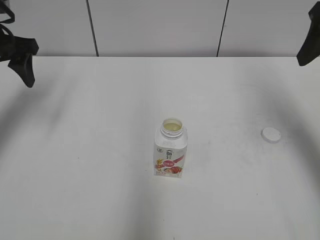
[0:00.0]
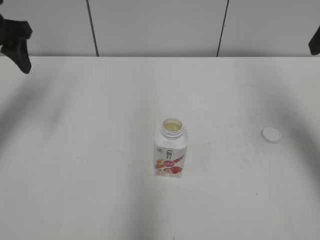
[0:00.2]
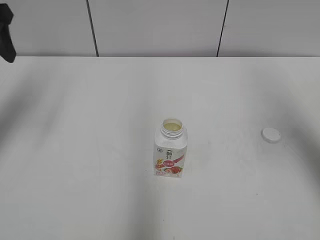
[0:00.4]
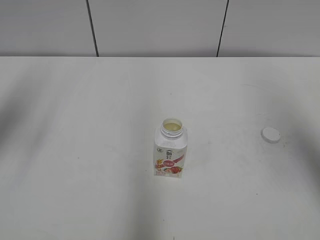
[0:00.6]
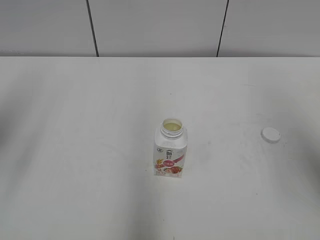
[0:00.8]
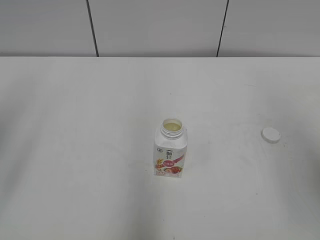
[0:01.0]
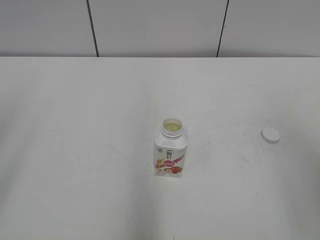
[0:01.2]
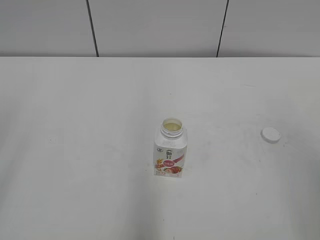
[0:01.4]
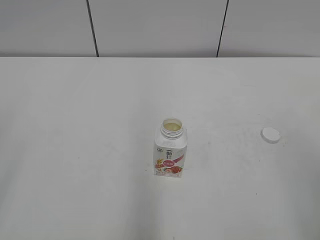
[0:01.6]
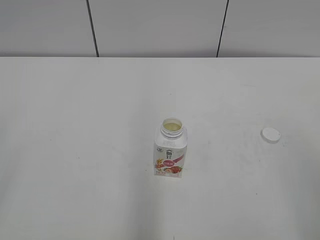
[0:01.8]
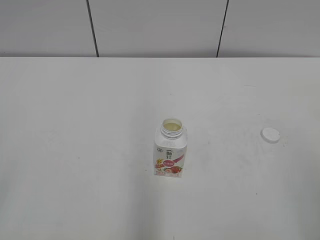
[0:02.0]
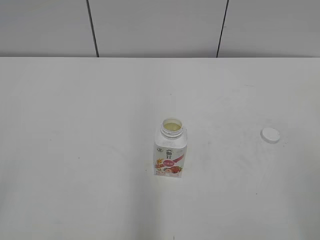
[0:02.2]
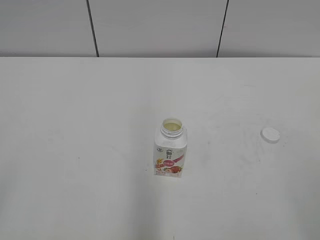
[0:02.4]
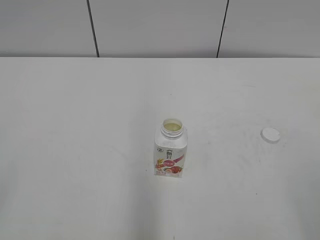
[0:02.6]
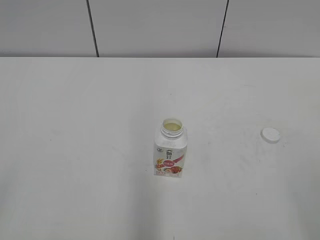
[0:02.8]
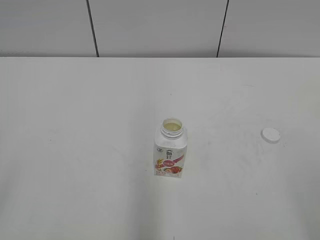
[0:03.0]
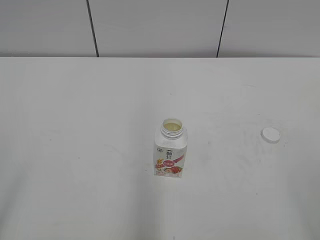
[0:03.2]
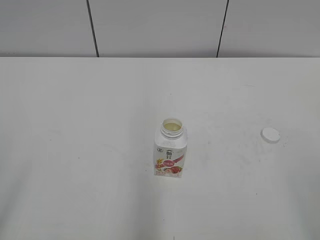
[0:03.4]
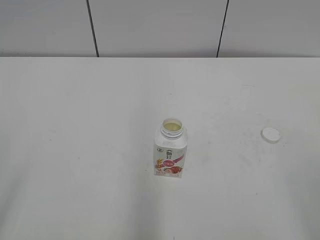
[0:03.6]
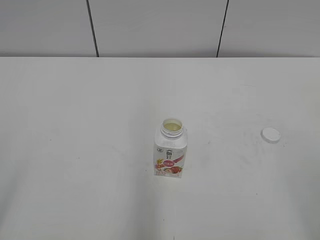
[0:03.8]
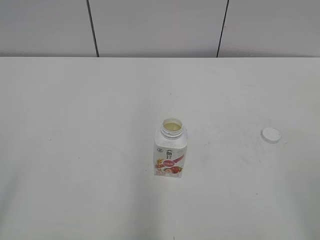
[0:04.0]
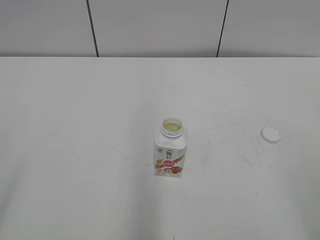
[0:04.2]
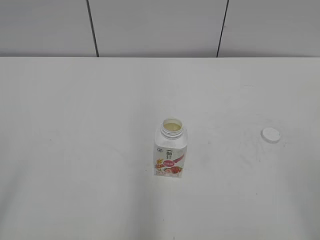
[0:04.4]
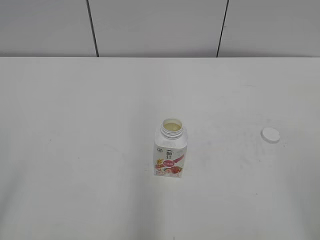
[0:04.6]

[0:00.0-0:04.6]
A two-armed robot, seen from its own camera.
0:00.0 to 0:01.6: The two grippers go approximately 30 cm backward.

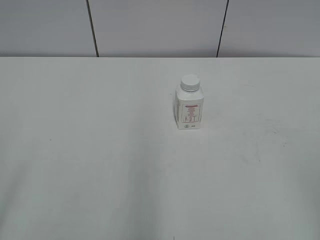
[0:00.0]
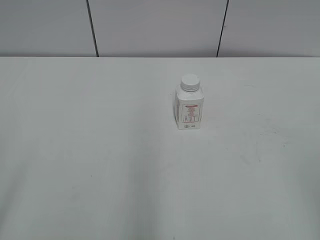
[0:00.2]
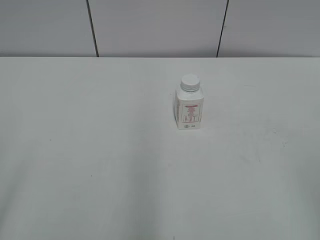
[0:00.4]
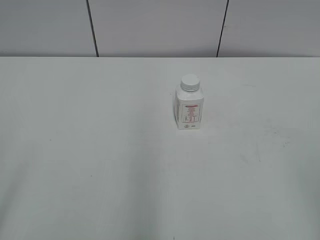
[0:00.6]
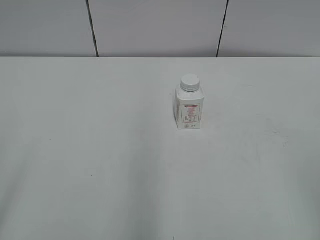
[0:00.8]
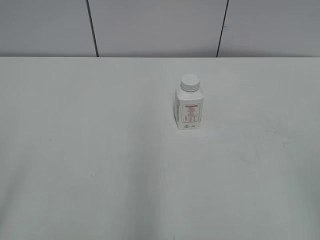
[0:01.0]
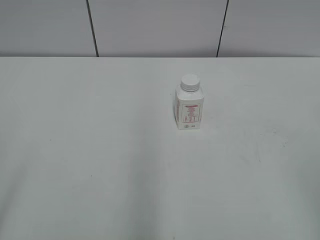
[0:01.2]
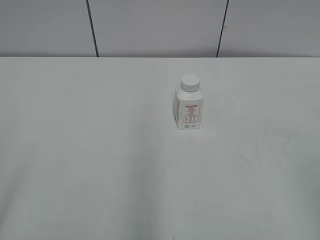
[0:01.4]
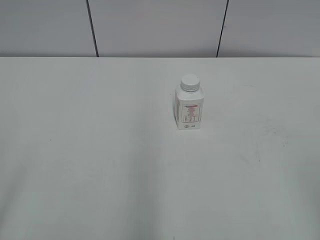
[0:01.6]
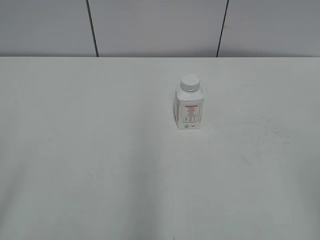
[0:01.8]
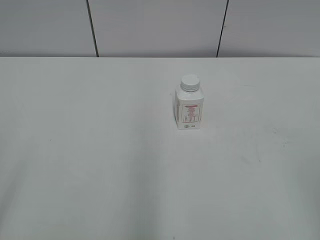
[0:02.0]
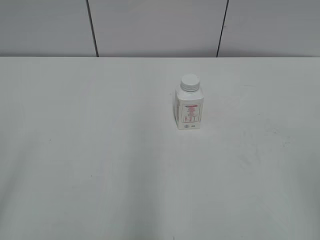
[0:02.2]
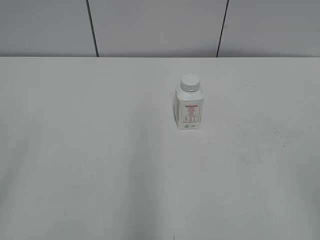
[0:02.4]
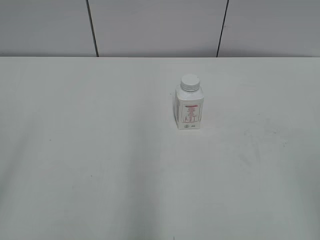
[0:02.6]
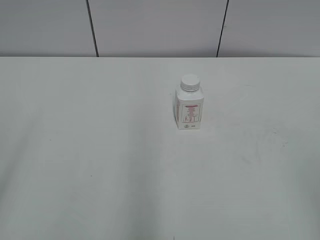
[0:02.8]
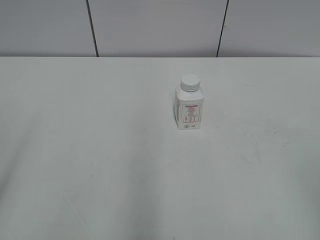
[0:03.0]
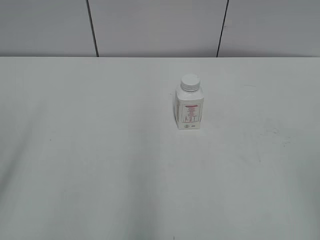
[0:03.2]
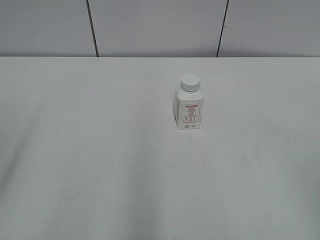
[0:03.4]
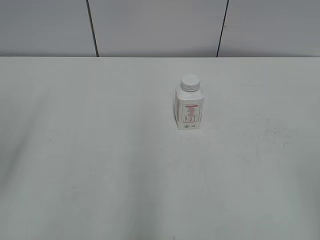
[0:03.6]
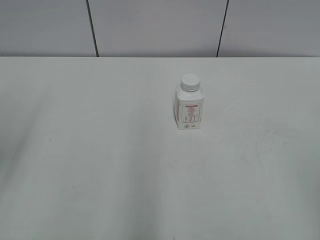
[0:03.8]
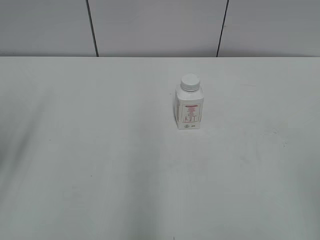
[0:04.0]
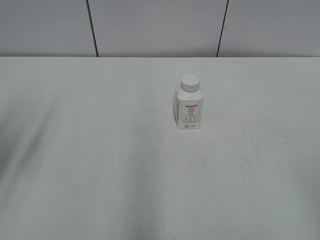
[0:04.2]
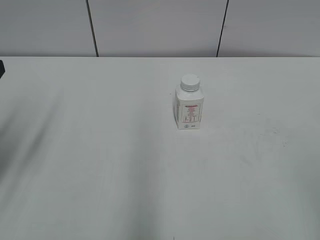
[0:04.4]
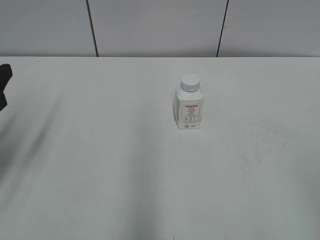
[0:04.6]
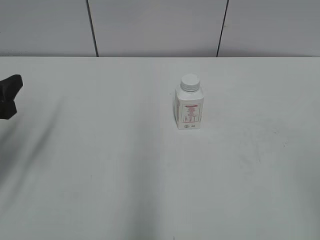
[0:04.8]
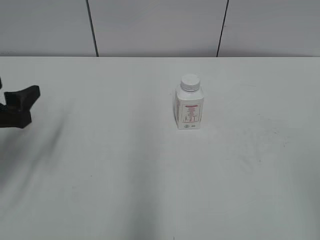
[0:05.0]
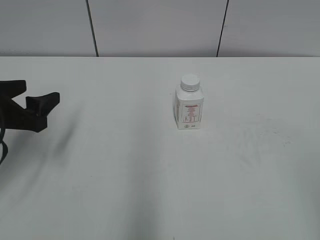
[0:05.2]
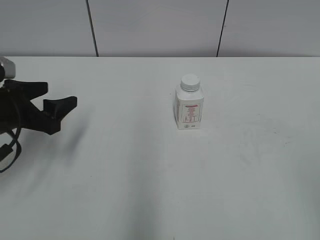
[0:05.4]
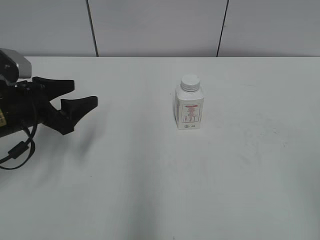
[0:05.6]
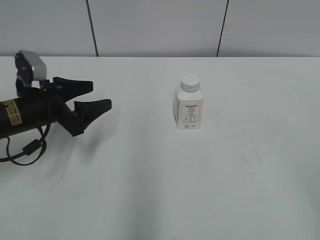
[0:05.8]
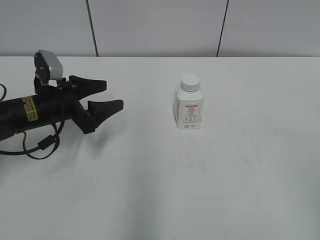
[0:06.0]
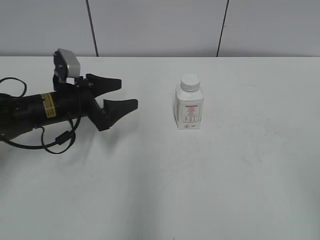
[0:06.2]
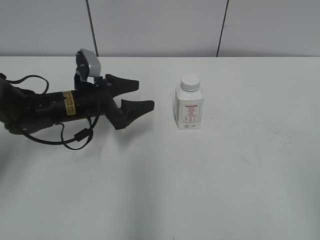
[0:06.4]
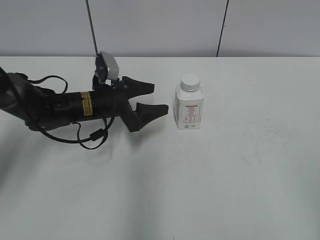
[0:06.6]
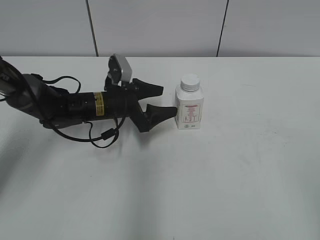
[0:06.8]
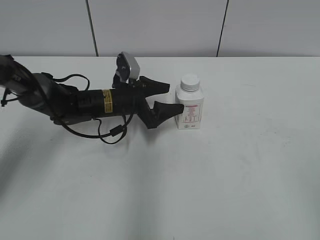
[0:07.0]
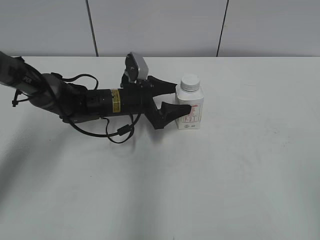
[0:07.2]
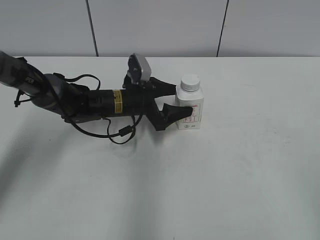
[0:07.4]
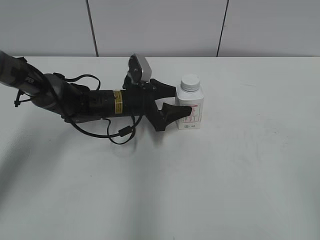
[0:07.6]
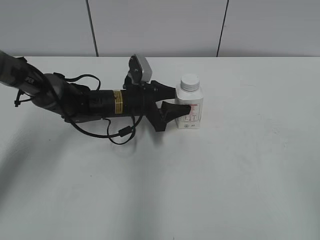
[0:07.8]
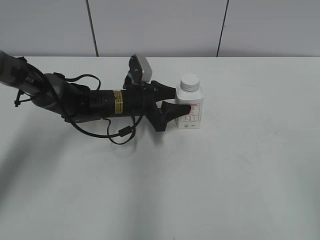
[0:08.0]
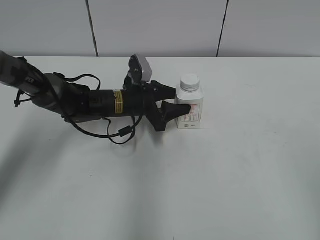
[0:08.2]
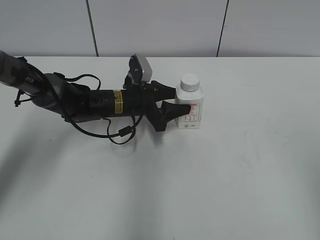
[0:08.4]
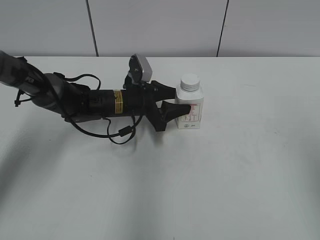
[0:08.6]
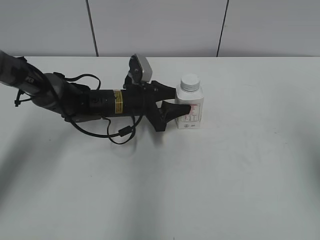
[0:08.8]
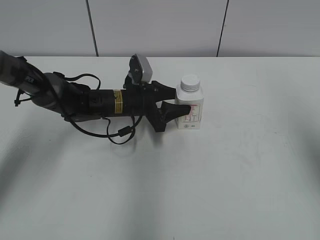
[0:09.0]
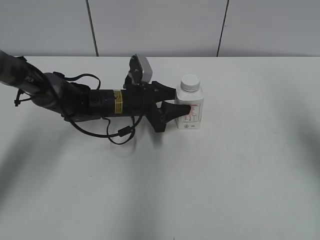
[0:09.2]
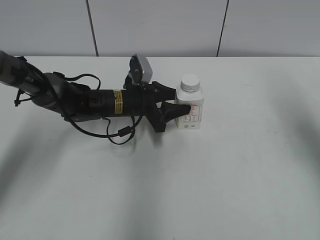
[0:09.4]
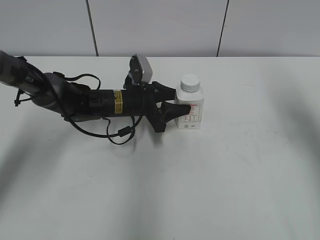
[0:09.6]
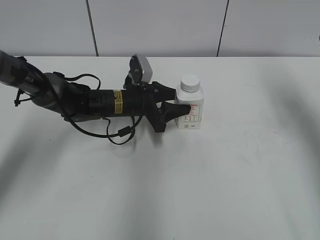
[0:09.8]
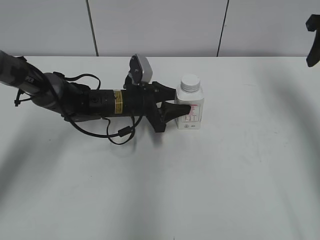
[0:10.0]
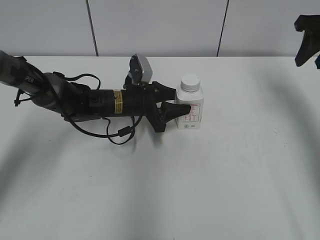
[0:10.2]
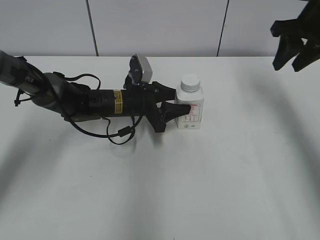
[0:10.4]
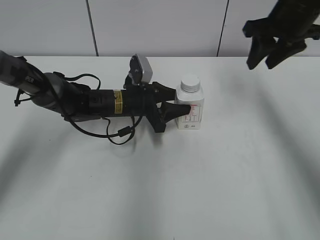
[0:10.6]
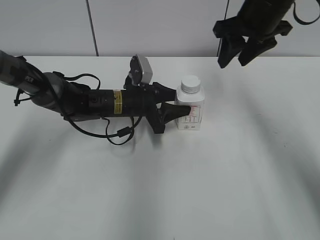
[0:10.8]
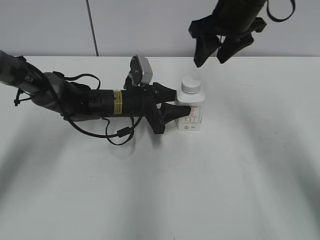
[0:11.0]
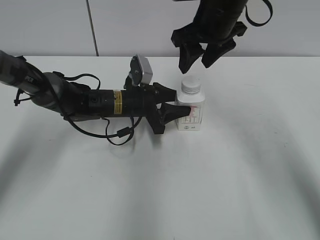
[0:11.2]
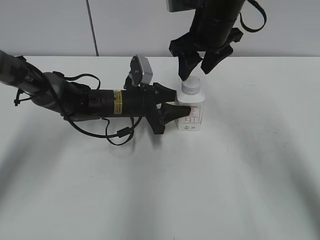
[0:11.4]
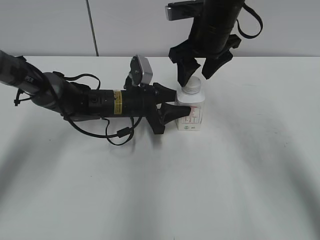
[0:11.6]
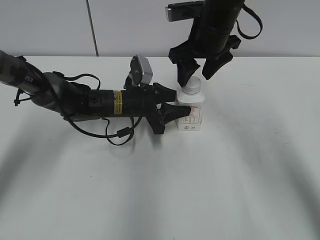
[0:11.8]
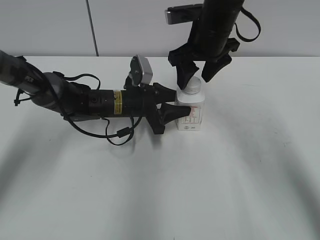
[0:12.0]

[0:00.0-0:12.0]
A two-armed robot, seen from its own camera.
Step, 0:00.0 to 0:08.2: Grab the Yili Changqing with the left hand.
0:03.0 to 0:04.4: The left gripper travels forward and downward by some 15 cm.
0:04.4 to 0:06.0: The left gripper heads forward, downward and to the right, covering some 20 cm.
0:06.0 to 0:07.6: The left gripper goes about 15 cm to the right and forward.
0:07.6 to 0:09.0: The left gripper closes. The right gripper heads forward, covering about 20 cm, and closes.
0:09.0 to 0:10.4: The right gripper goes approximately 20 cm forward.
0:10.4 to 0:12.0: The right gripper heads to the left, covering some 15 cm, and opens its fingers.

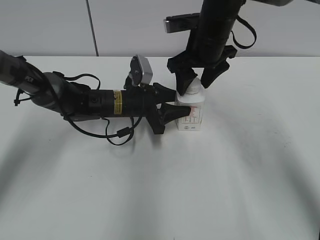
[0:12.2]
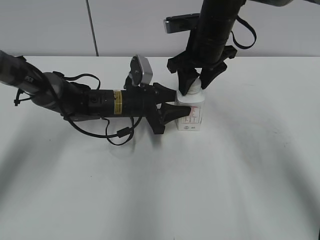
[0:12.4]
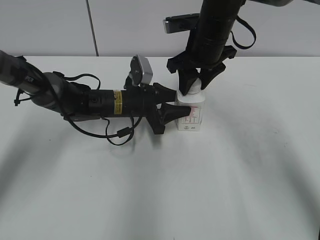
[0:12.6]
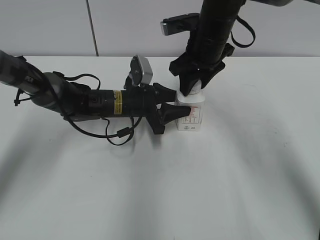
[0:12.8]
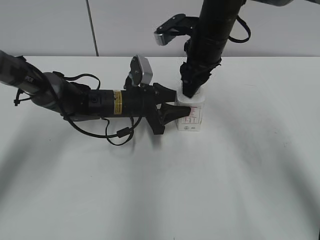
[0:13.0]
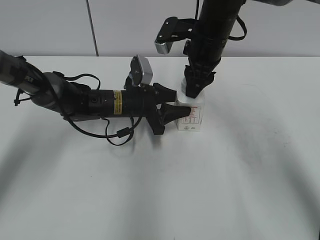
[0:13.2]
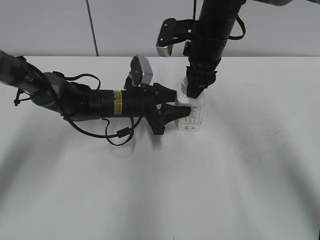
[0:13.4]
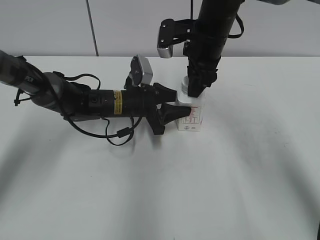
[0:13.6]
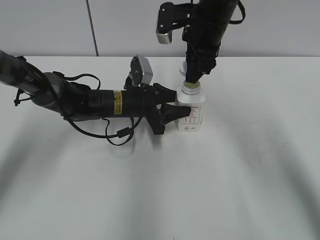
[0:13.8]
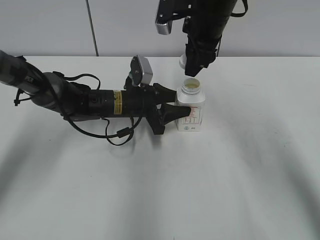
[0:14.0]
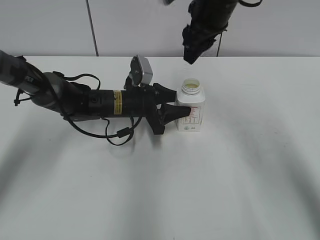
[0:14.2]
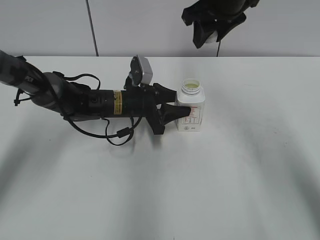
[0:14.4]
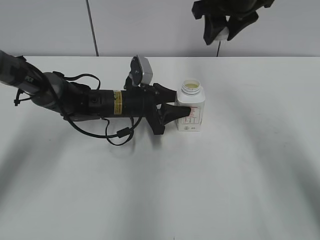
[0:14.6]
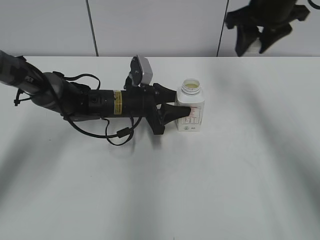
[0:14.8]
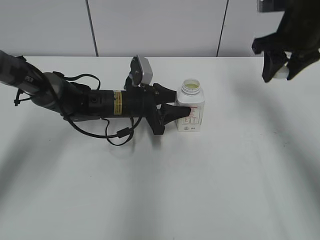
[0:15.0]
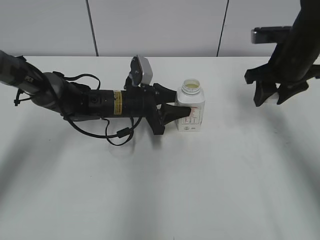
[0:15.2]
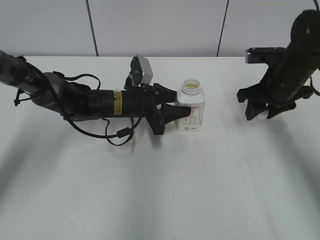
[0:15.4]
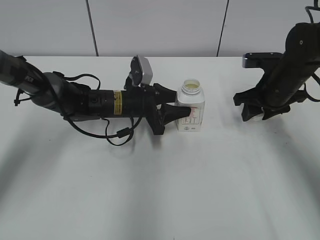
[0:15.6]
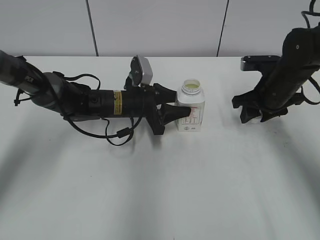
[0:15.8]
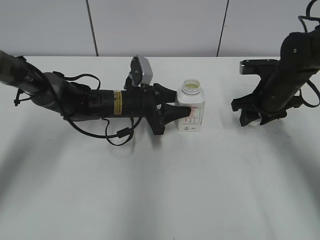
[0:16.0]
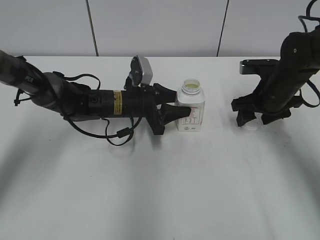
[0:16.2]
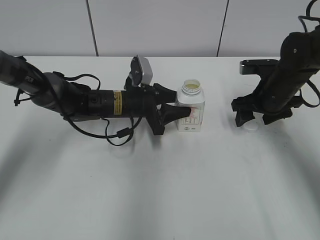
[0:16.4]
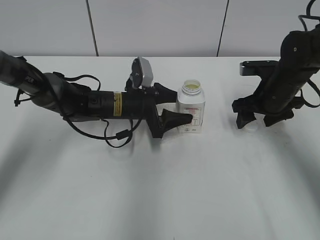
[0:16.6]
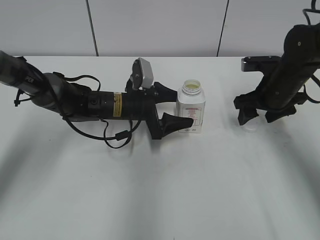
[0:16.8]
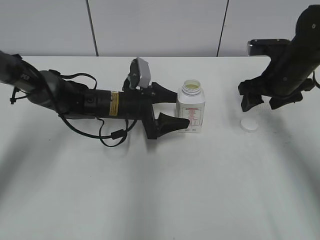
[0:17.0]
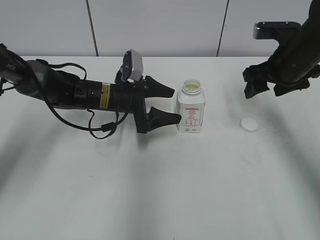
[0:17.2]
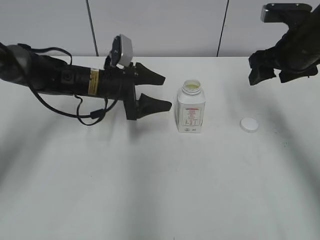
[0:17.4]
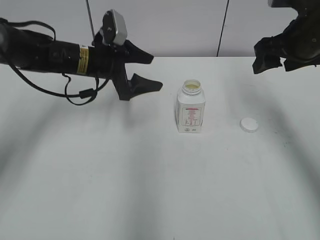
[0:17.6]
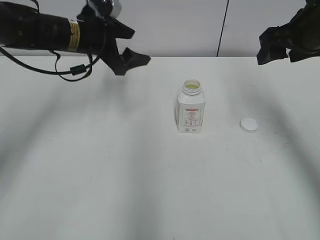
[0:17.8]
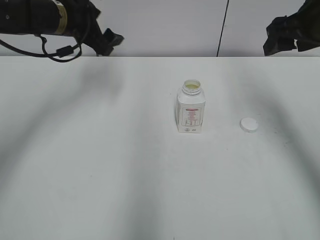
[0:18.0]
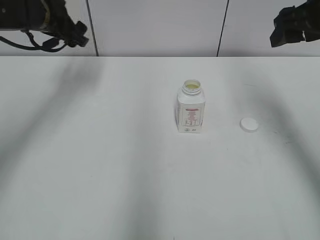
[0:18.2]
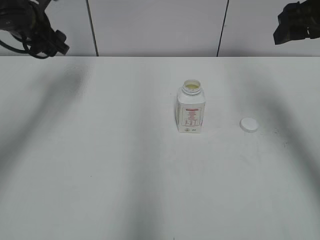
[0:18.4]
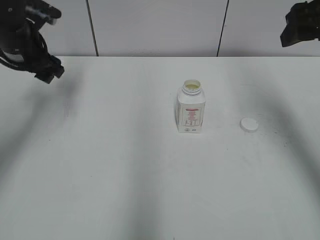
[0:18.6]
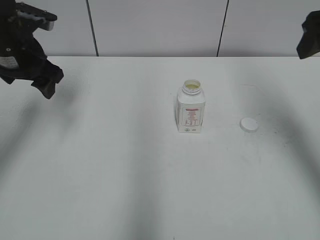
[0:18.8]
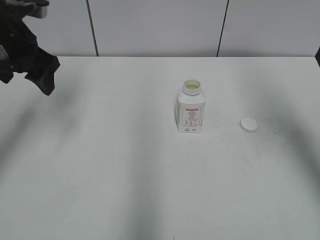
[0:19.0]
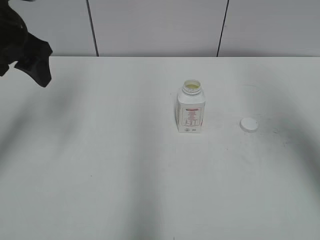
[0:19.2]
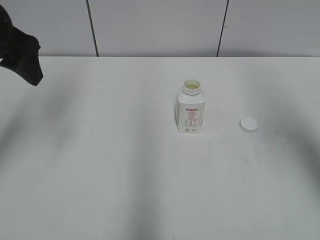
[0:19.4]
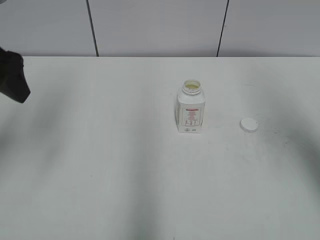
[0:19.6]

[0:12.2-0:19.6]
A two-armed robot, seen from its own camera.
Step, 0:13.8 to 0:16.2: Place the bottle cap on the right.
0:12.2 to 0:13.6: The right gripper closes up.
0:13.6 to 0:15.2: The right gripper goes roughly 15 cm to the right.
0:15.2 to 0:16.6: The right gripper travels downward by roughly 10 cm, and opens; the left gripper opens up.
0:16.6 to 0:18.2: The right gripper moves upward, about 20 cm, while the left gripper heads upward and to the left, covering approximately 20 cm, and opens.
0:18.2 to 0:19.6: Both grippers move backward and upward, roughly 15 cm.
